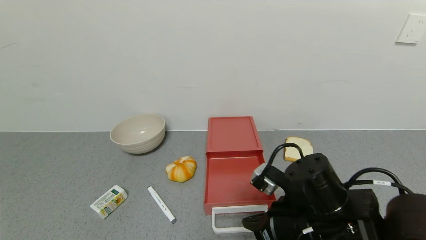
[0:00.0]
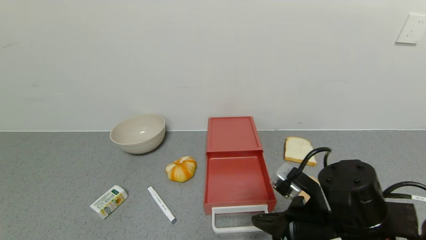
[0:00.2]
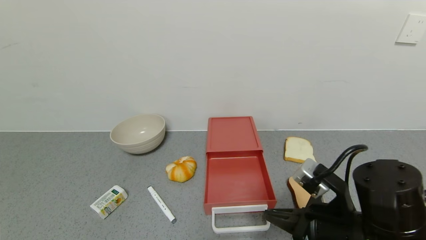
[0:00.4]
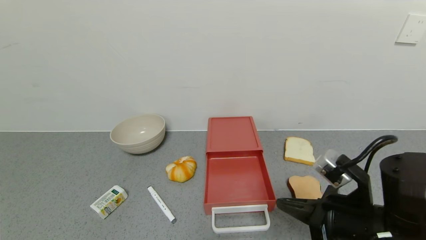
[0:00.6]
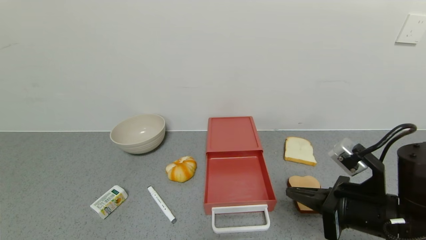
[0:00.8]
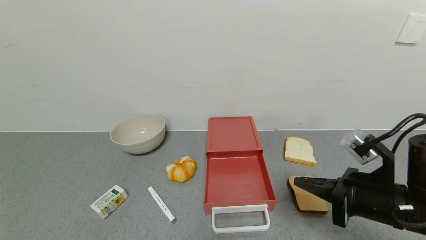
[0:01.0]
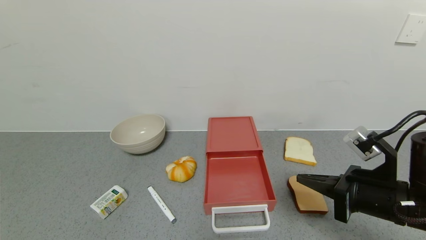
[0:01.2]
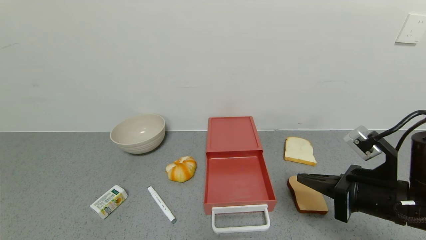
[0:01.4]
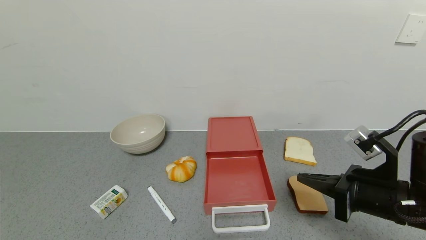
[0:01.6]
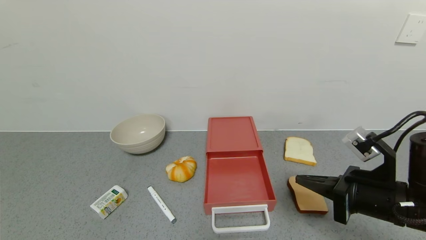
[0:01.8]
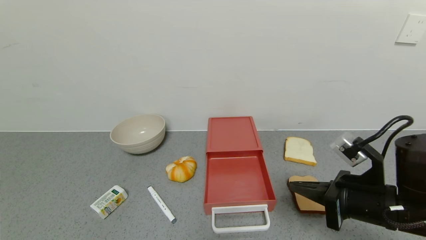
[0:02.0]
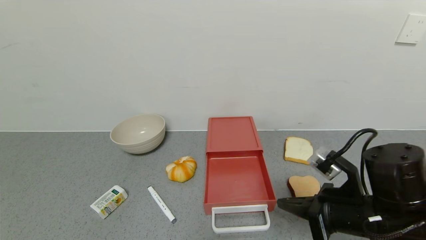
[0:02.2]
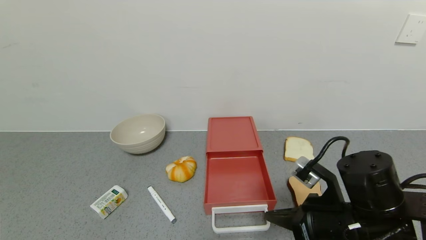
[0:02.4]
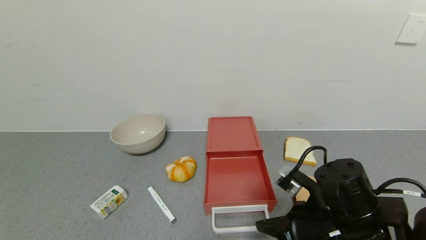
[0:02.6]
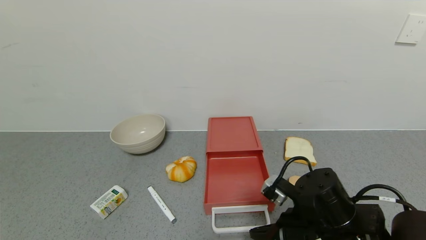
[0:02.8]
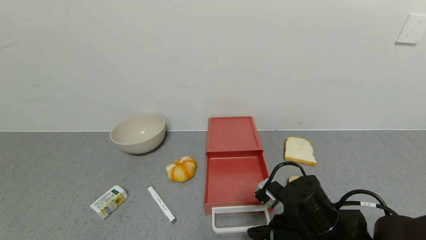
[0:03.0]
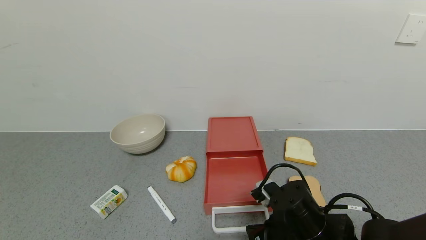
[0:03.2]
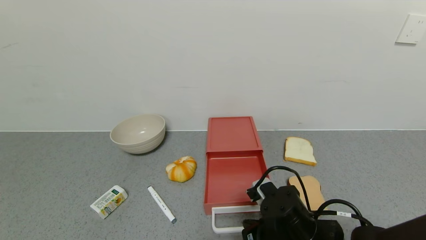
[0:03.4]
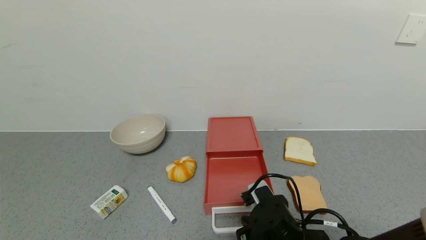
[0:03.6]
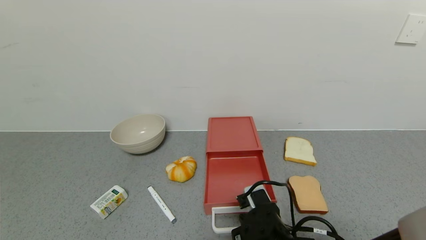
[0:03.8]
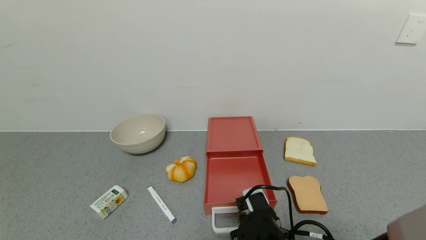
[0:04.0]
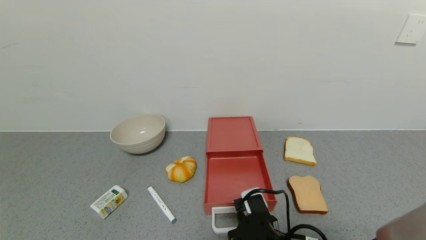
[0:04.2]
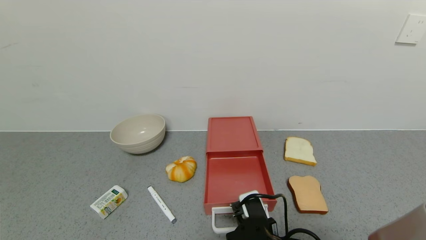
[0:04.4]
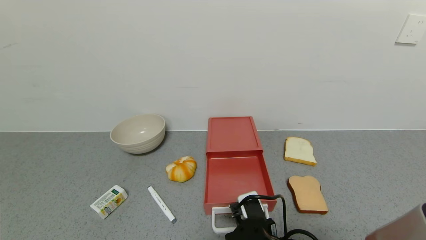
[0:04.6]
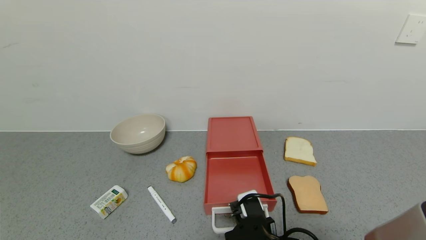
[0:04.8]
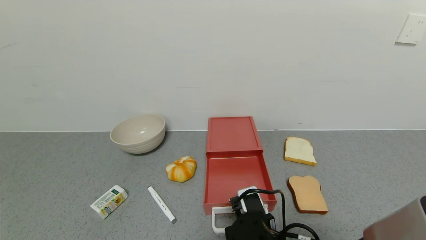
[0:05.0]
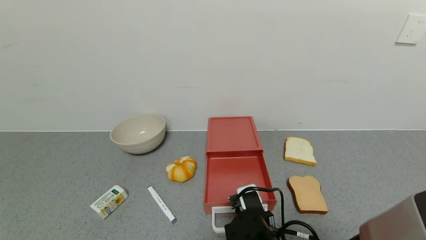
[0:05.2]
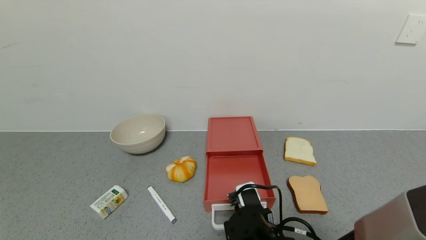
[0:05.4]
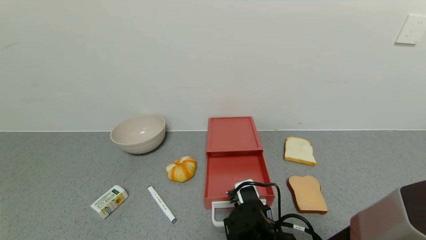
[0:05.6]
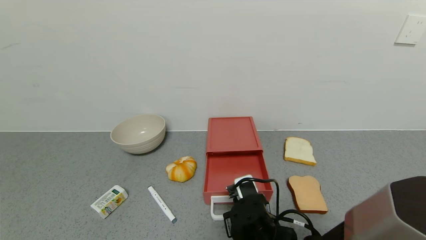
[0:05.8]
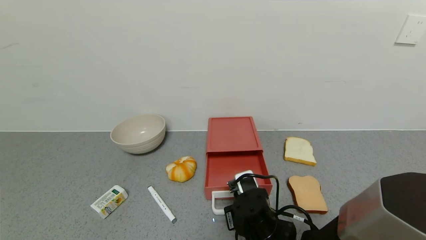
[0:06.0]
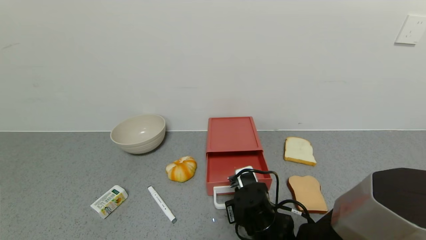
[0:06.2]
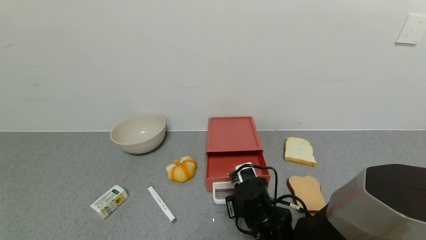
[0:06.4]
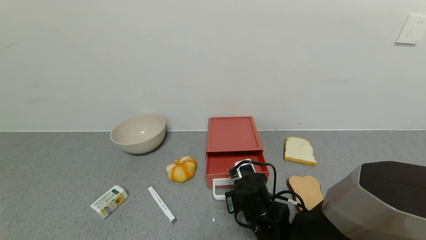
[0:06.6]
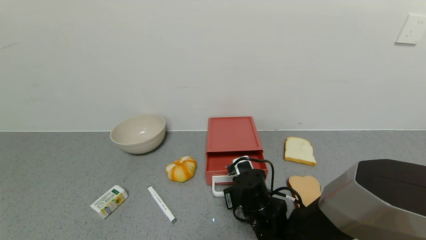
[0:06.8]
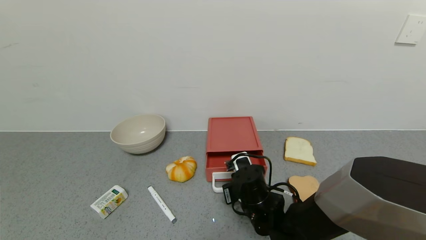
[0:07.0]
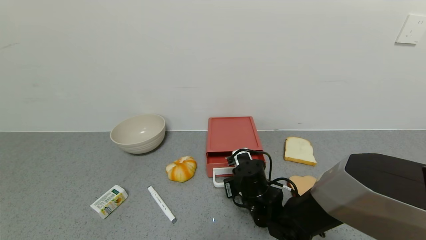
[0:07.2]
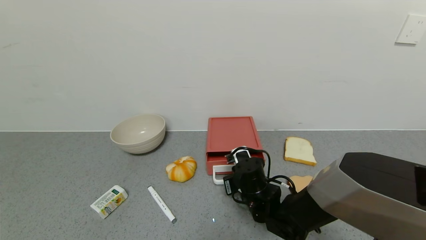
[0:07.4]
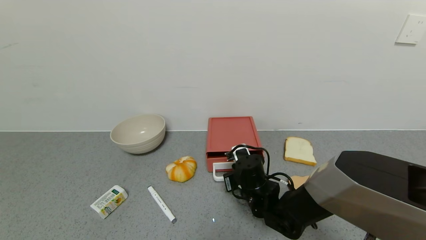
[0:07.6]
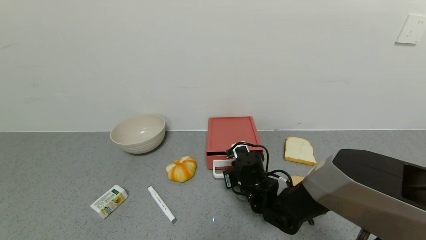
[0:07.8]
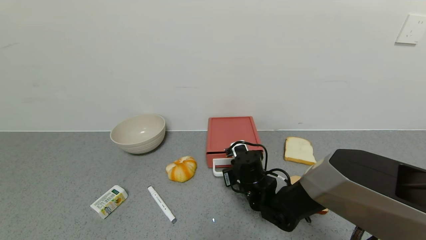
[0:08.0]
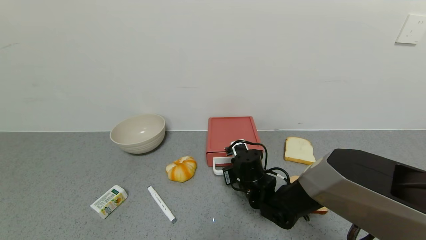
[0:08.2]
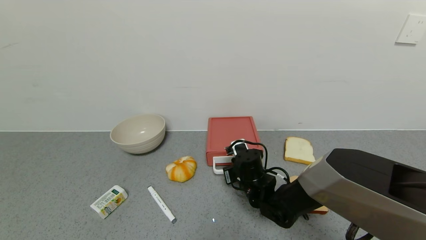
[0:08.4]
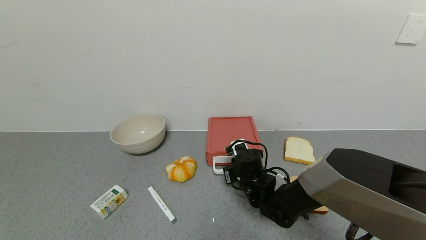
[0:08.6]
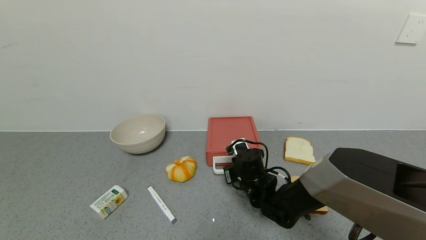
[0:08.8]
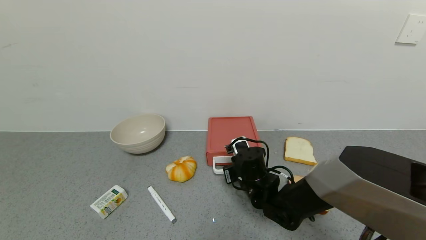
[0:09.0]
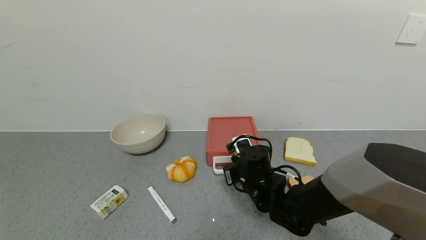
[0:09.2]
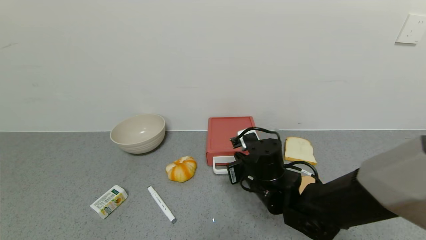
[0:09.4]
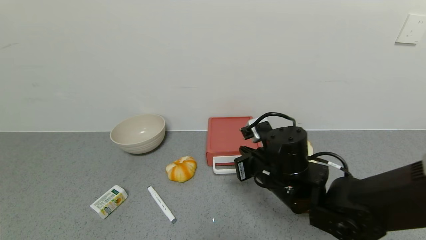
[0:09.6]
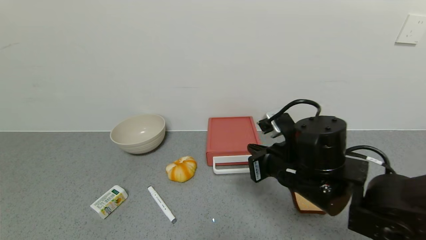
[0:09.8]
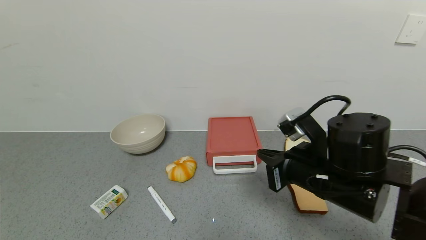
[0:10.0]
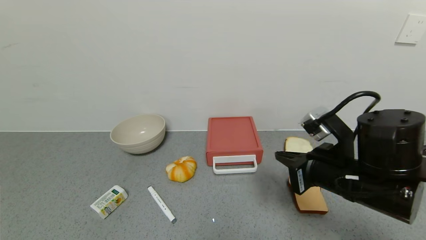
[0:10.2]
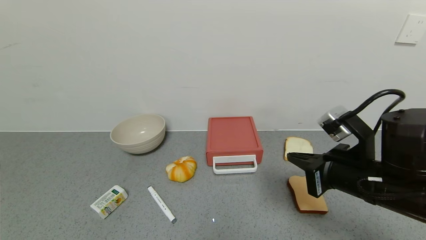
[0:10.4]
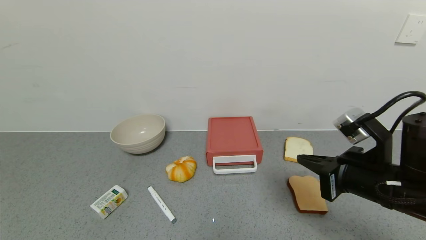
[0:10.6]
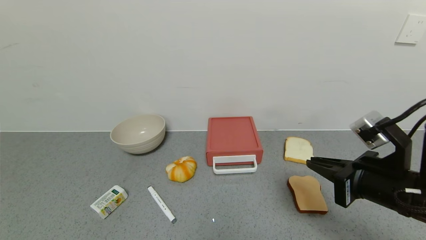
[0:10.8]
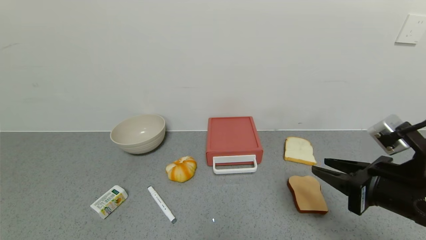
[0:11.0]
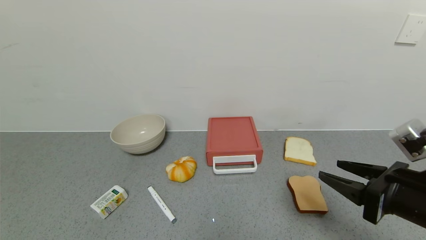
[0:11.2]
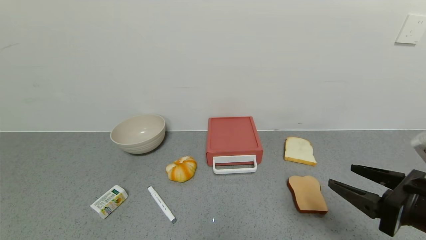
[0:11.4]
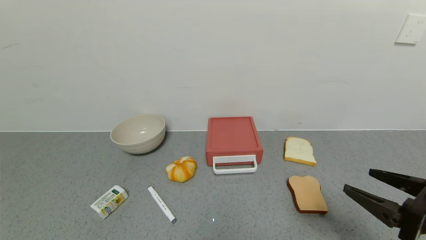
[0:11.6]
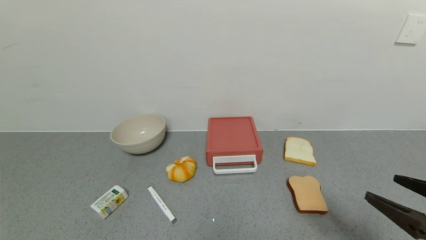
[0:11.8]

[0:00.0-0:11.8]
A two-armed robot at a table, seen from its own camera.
Task of the whole recording: use the gripper to open the drawer and close the red drawer.
Step, 0:00.0 to 0:09.2: Close the red drawer with right gripper.
0:00.0 to 0:01.4: The right gripper shifts roughly 10 cm to the right.
0:01.4 to 0:03.0: The right gripper heads to the left and downward, covering roughly 15 cm.
0:03.0 to 0:04.4: The right gripper moves to the left and downward, roughly 10 cm.
0:04.4 to 0:06.0: The right gripper heads forward, covering roughly 5 cm.
0:06.0 to 0:07.4: The right gripper shifts approximately 10 cm forward.
0:07.4 to 0:08.8: There are only small adjustments of the grippers.
0:08.8 to 0:10.4: The right gripper moves upward, to the right and backward, approximately 25 cm.
0:10.4 to 0:11.8: The right gripper shifts about 15 cm backward and to the right, and opens its fingers.

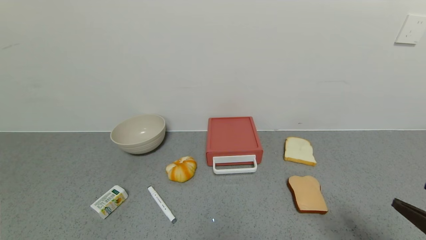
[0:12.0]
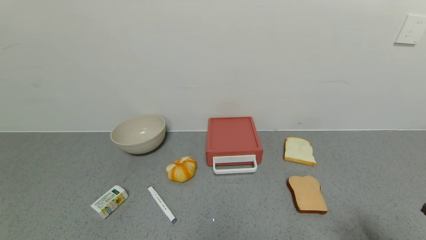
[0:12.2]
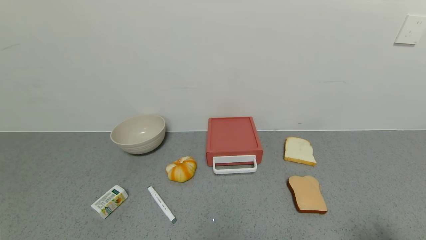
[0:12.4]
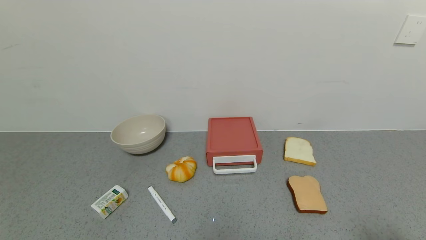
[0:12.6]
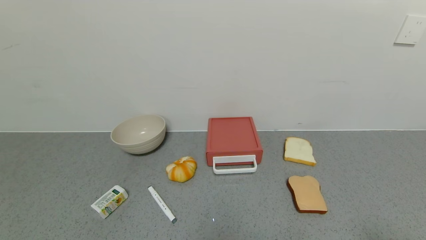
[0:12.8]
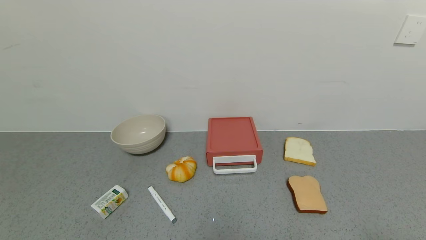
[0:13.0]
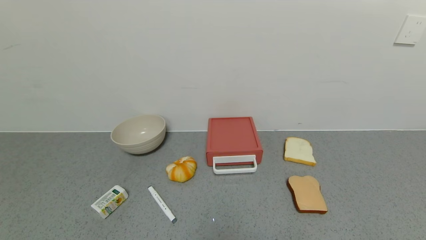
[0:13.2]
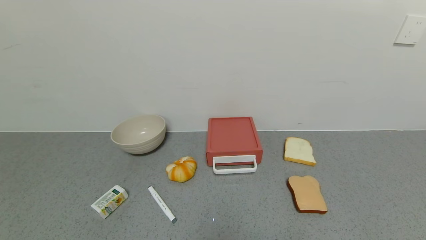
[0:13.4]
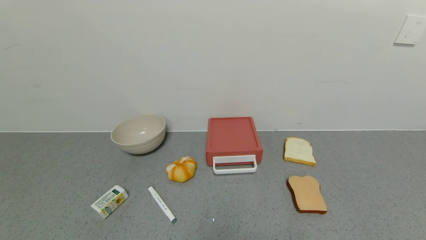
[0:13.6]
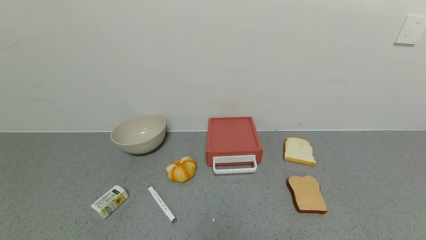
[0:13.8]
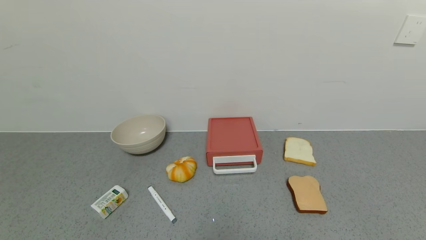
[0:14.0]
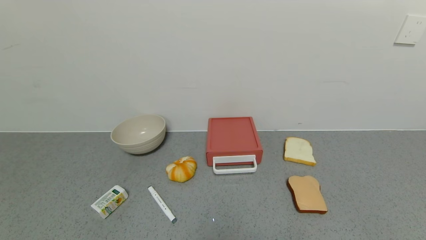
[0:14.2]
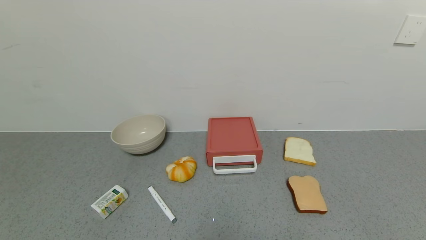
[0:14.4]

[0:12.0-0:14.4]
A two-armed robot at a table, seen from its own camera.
Task of the whole recording: use the gripper to open the drawer and close the red drawer.
0:12.0 to 0:13.2: The right gripper travels backward by roughly 10 cm.

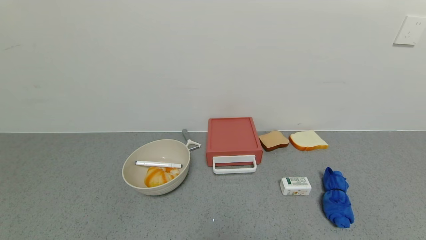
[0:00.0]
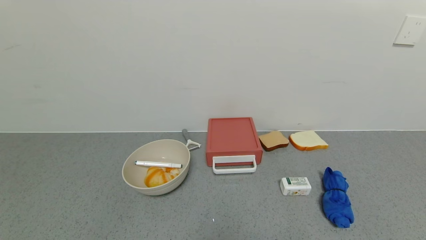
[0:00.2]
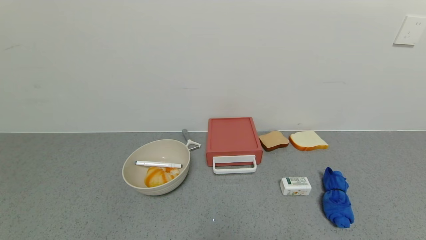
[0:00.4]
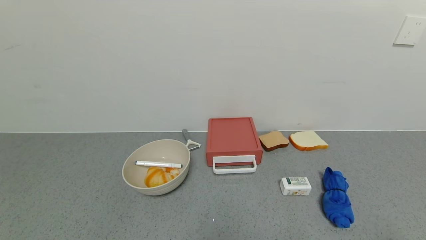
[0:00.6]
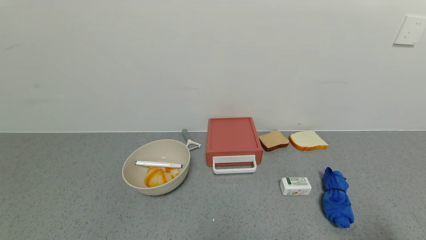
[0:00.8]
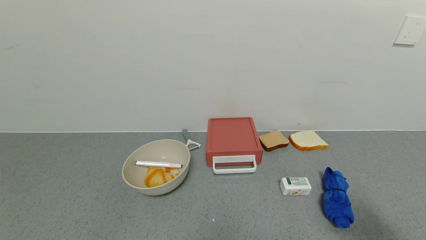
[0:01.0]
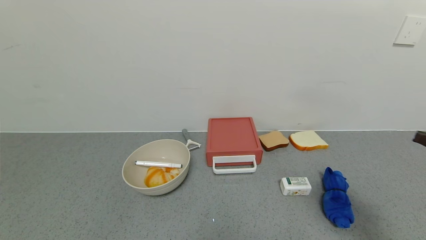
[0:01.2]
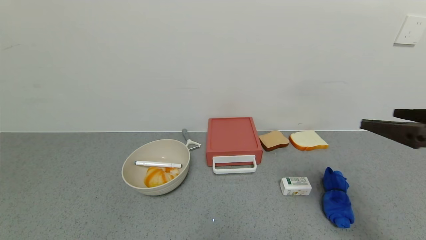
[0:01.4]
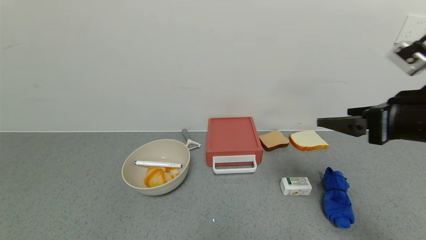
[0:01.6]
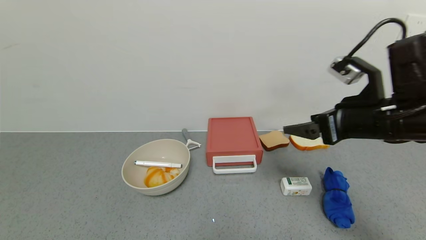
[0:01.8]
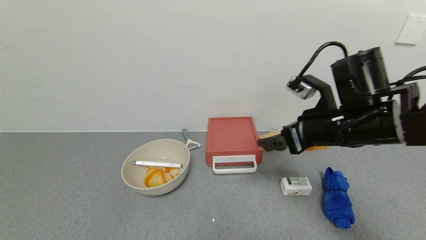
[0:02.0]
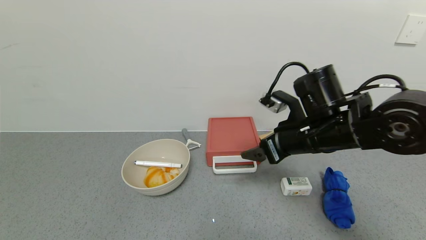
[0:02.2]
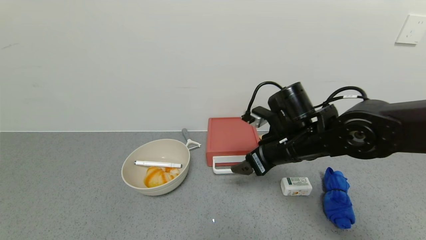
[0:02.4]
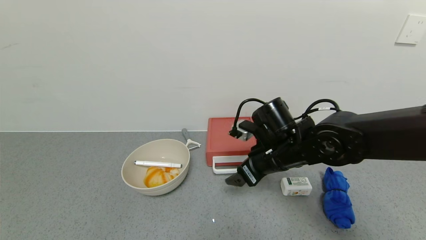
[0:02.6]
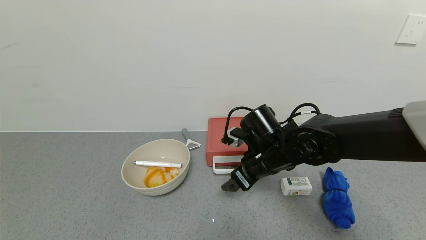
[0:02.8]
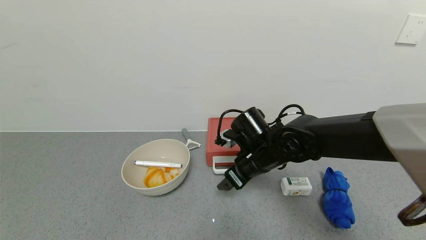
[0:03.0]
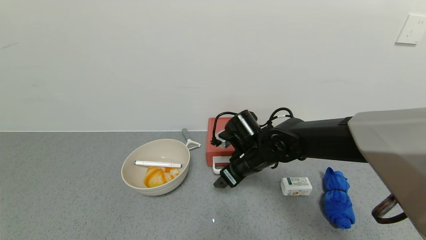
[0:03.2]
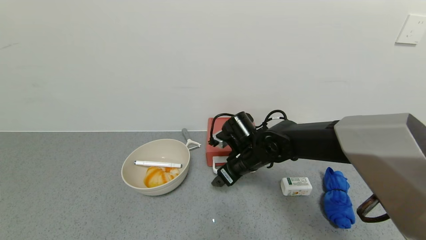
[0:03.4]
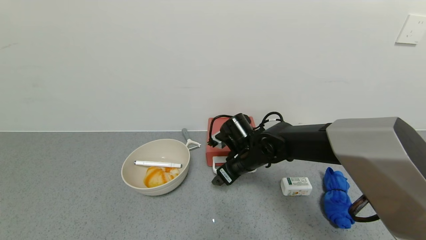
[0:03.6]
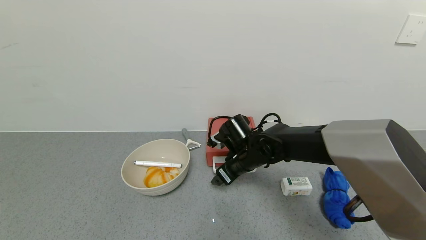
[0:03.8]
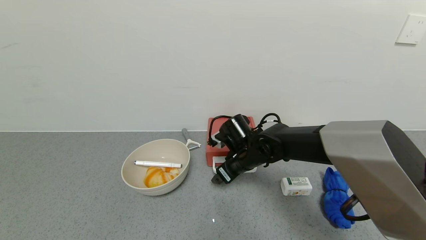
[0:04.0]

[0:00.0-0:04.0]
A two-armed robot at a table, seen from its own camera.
Task of the whole recording: use the gripper to open the drawer and close the red drawer.
0:00.0 to 0:01.4: The right gripper heads upward and forward, covering about 30 cm.
0:01.4 to 0:02.6: The right gripper heads to the left, forward and downward, covering some 25 cm.
0:02.6 to 0:04.0: The right gripper moves forward, downward and to the left, about 10 cm.
